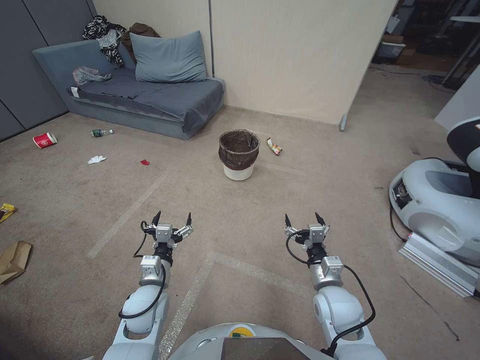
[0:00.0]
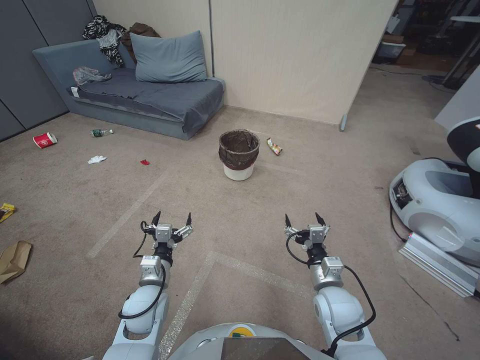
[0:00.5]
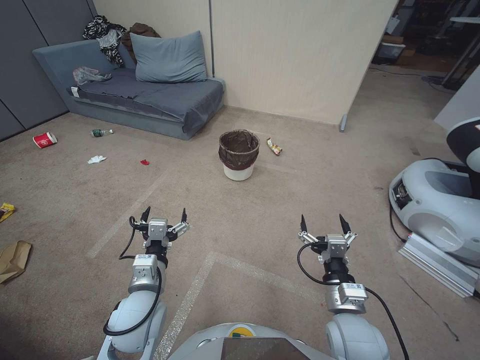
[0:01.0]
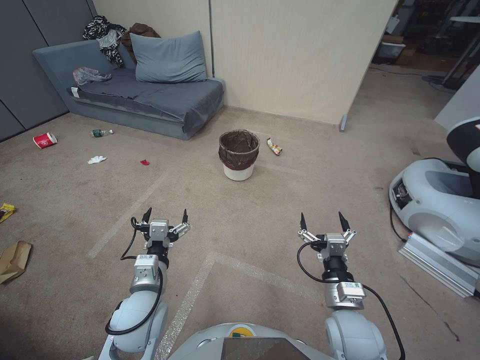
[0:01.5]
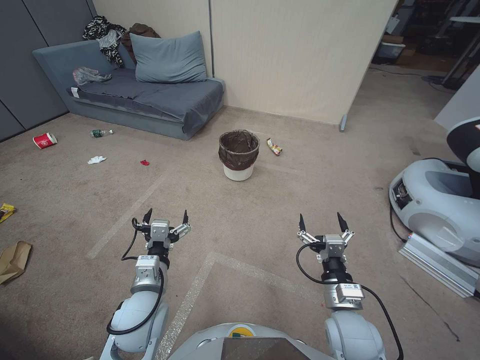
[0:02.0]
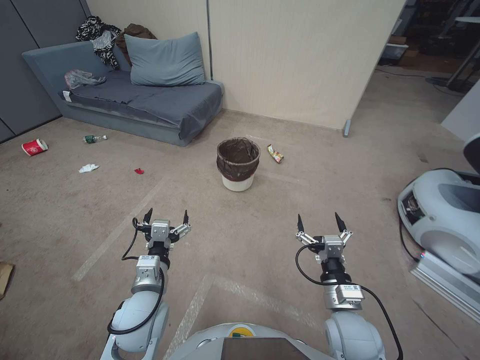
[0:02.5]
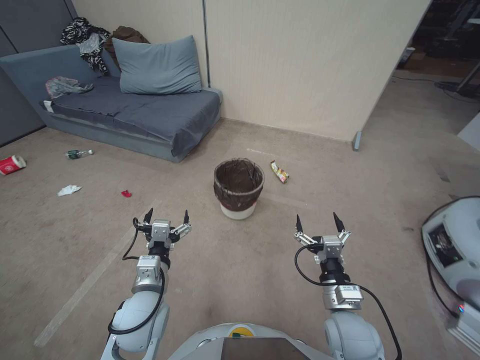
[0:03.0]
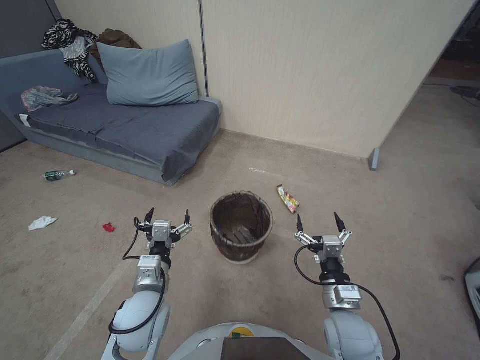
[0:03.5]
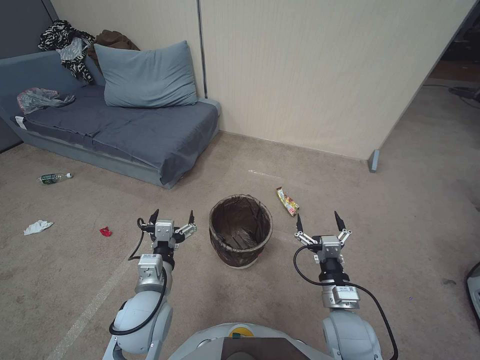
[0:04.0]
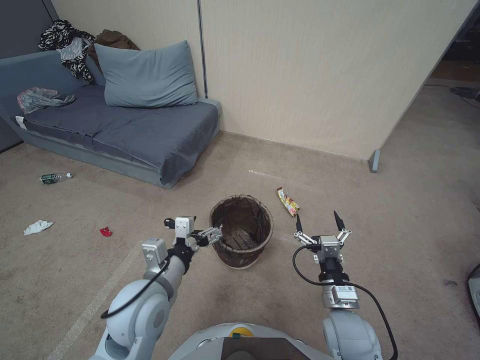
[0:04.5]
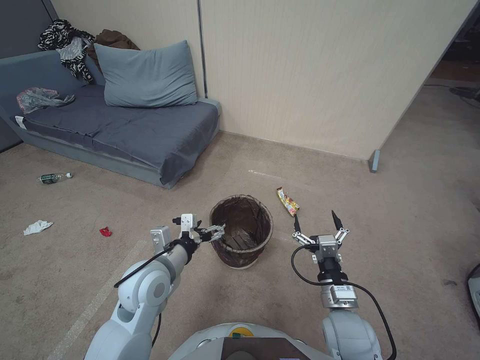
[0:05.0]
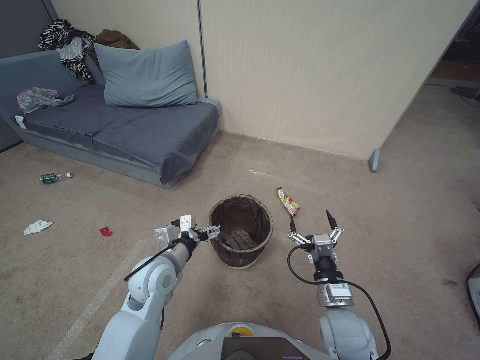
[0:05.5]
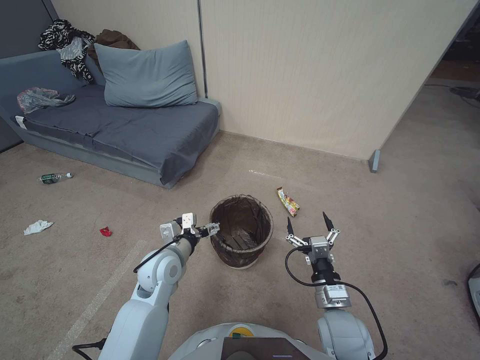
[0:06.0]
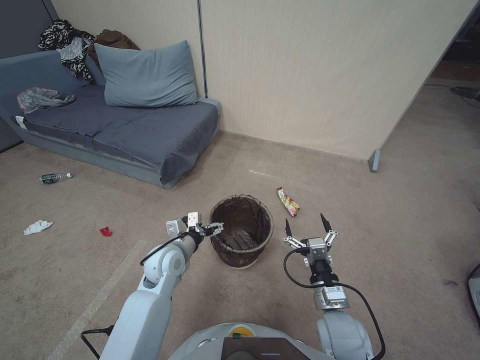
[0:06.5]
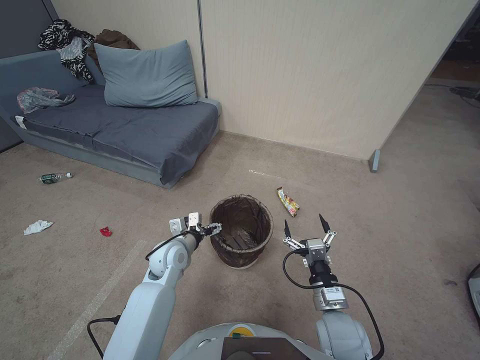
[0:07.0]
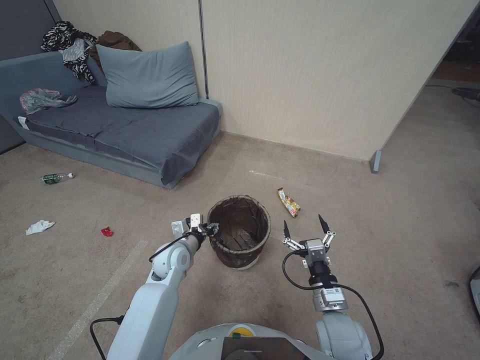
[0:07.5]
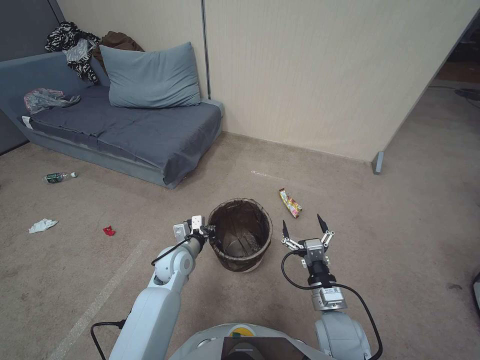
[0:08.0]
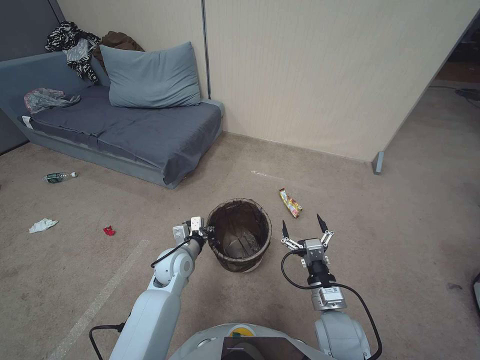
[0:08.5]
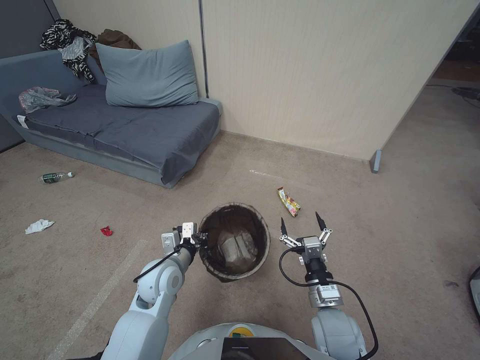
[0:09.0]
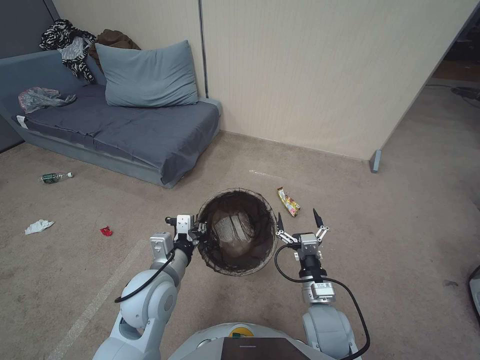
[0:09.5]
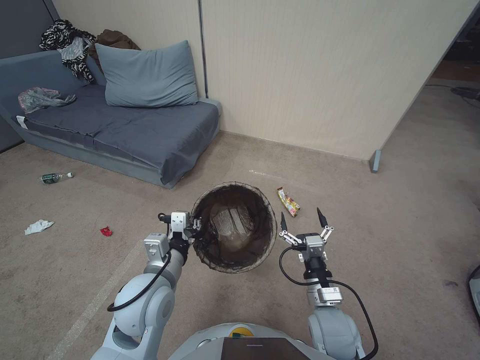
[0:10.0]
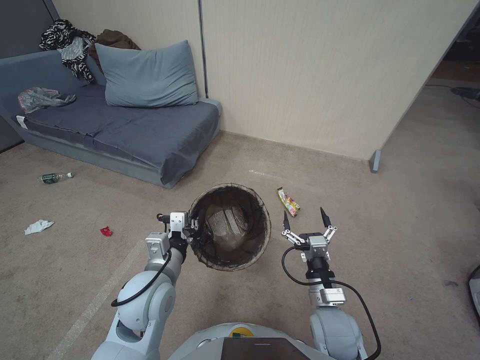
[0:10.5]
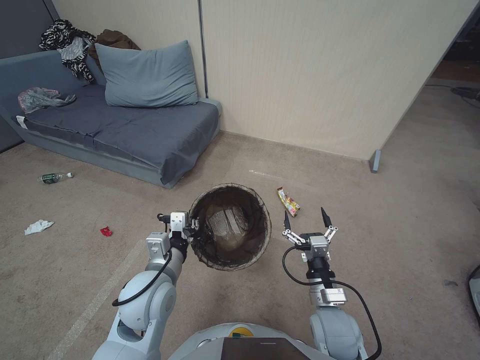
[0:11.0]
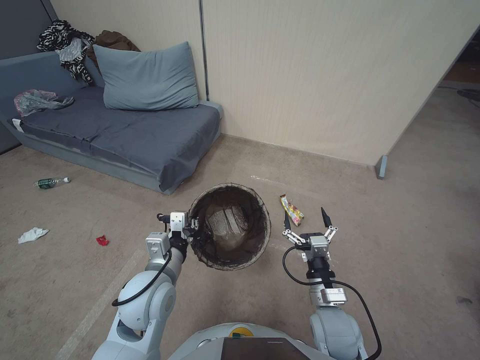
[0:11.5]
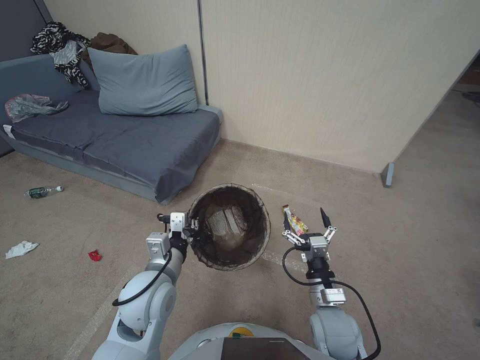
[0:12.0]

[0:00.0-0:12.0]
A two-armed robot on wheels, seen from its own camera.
Task of the whole recording: Pick up the trash bin, then pick up the garbage from the floor and place it into the trash bin.
0:04.0 to 0:06.0: The left gripper travels forward by about 10 cm.
0:06.0 to 0:08.0: The left gripper heads downward, covering about 10 cm, and closes its fingers.
0:08.0 to 0:10.0: The left gripper travels upward and backward by roughly 20 cm.
0:10.0 to 0:12.0: The grippers move only a little.

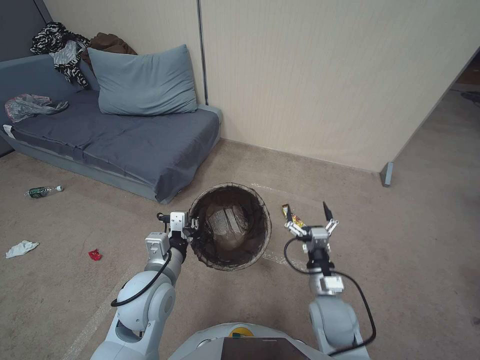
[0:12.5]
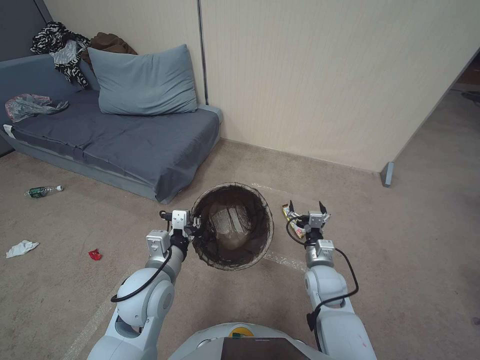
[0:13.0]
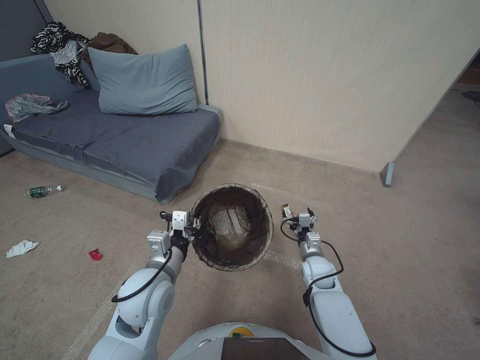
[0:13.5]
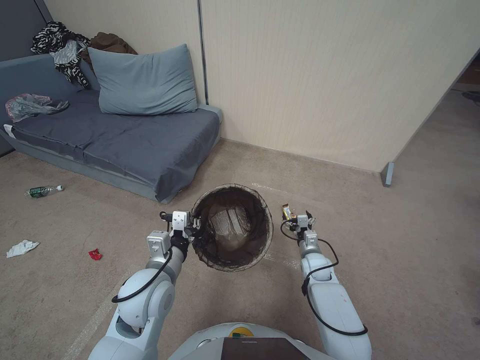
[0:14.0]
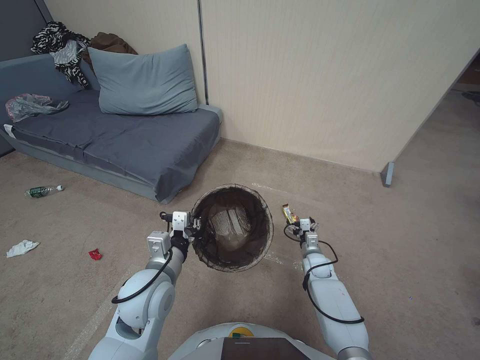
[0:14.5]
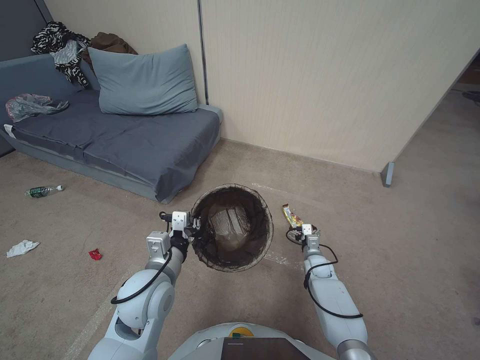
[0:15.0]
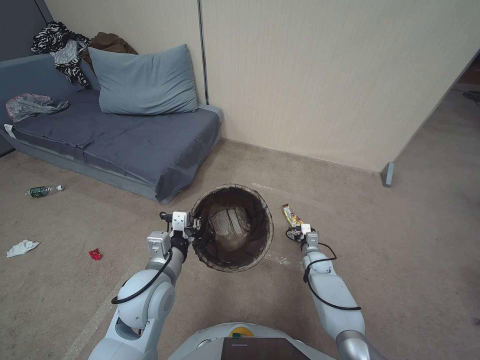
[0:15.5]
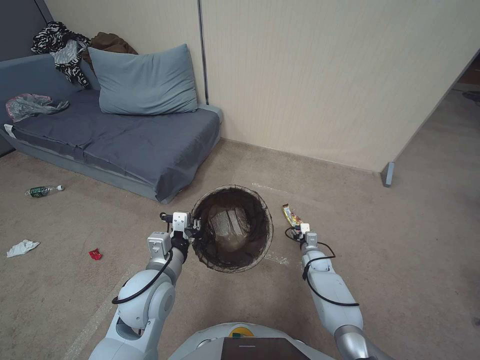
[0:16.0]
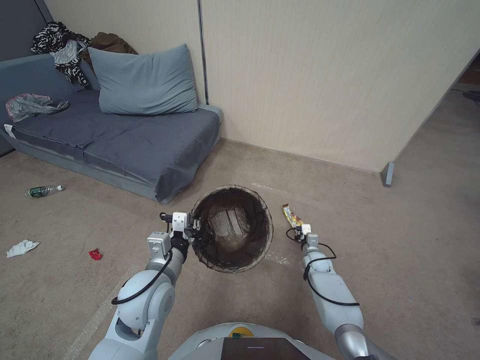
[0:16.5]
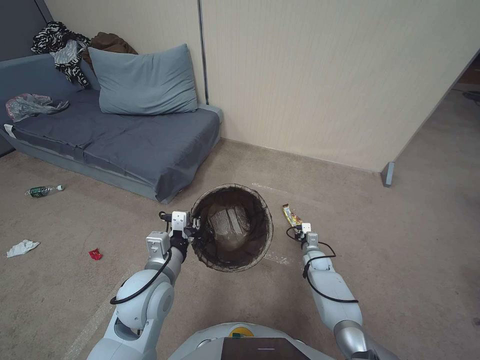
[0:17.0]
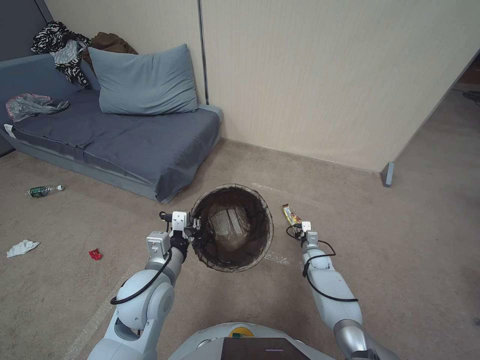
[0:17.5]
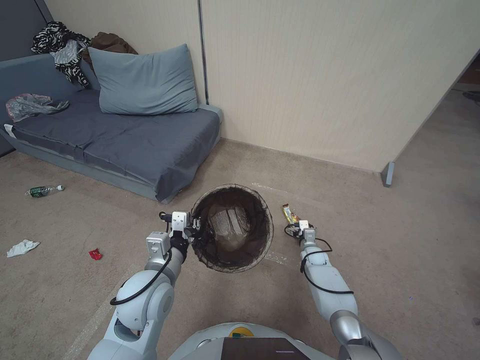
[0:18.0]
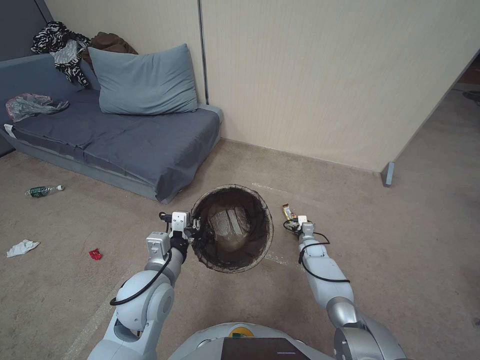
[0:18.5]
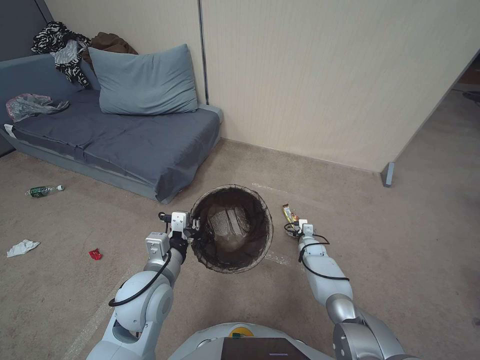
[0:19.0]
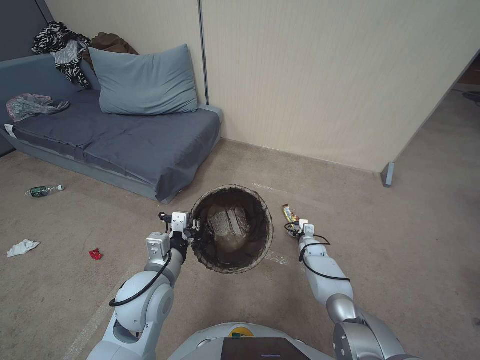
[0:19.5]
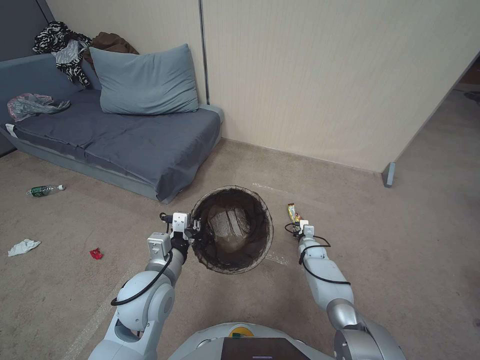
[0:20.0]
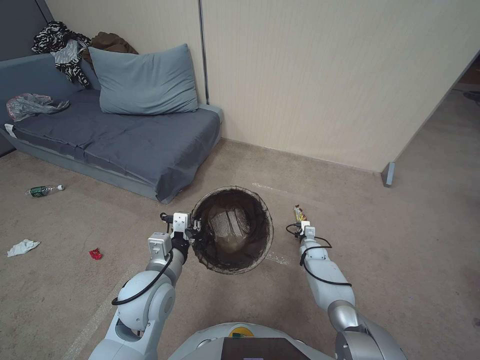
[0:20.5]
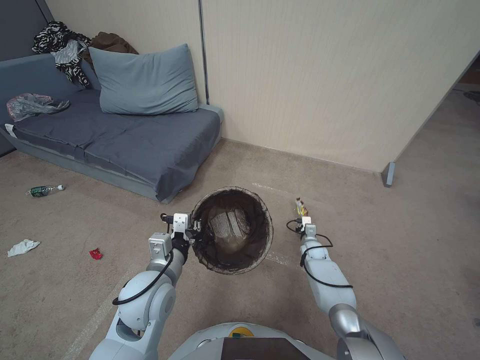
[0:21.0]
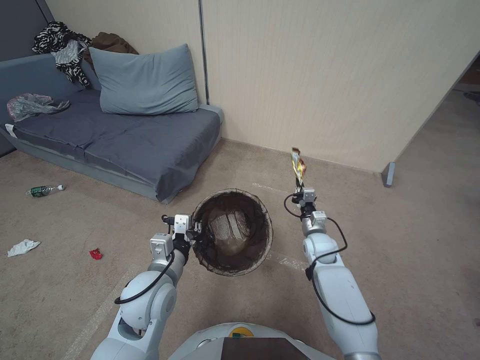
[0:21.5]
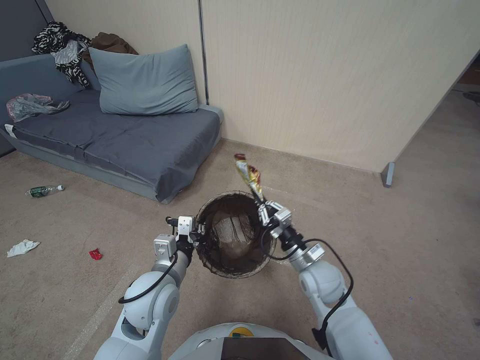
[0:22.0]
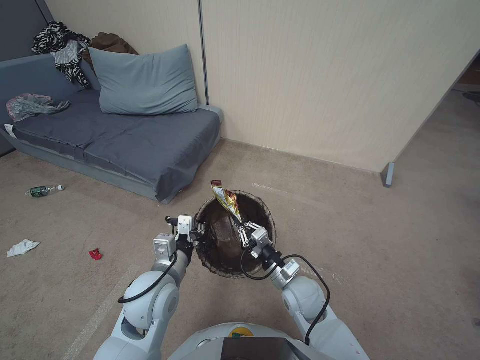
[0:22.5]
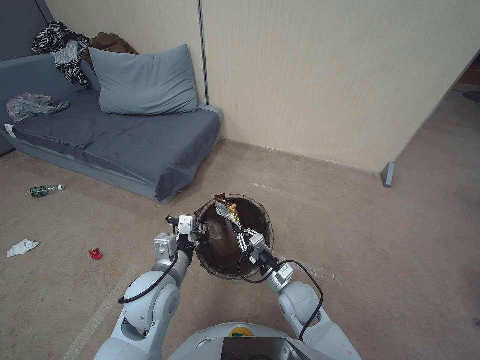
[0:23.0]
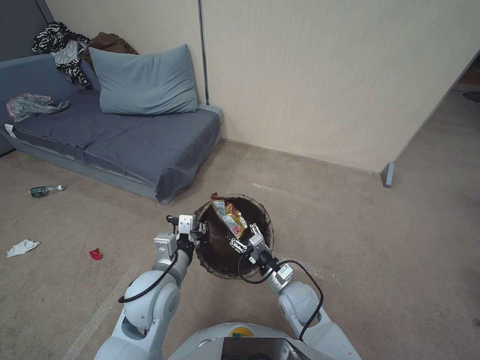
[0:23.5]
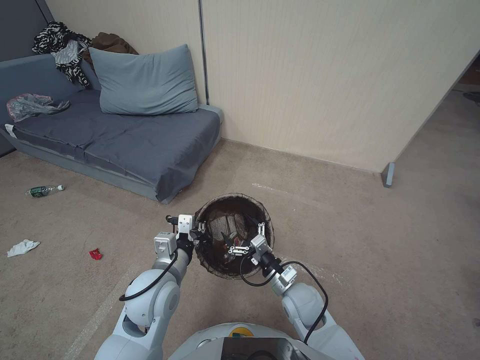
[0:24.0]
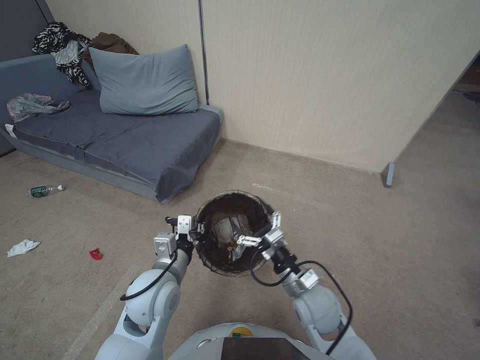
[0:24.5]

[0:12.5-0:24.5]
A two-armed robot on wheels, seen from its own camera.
Task of the whole recording: Pick up the trash bin, then pick up the garbage from the floor and place it into the trash bin.
0:12.5 to 0:14.5: The right gripper shifts about 25 cm forward and downward.
0:14.5 to 0:16.5: The right gripper moves approximately 5 cm, and closes.
0:16.5 to 0:18.5: The right gripper opens up.
0:18.5 to 0:20.5: The right gripper closes its fingers.
0:20.5 to 0:22.5: The right gripper travels backward, upward and to the left by some 30 cm.
0:22.5 to 0:24.5: The right gripper opens up.

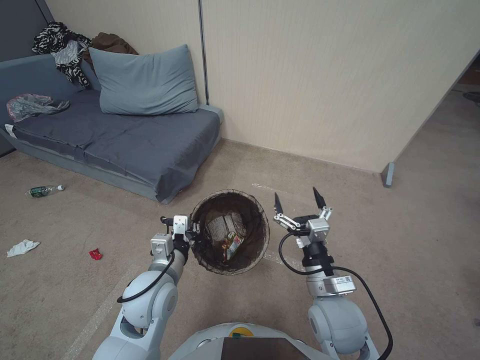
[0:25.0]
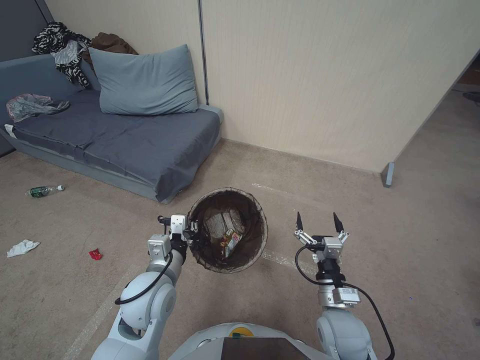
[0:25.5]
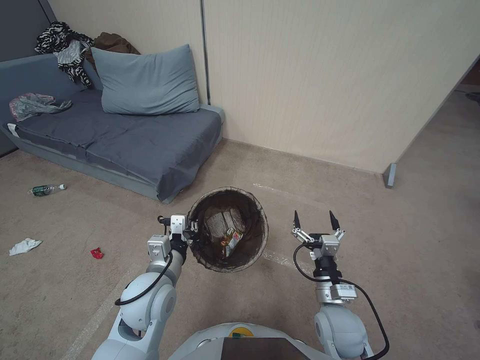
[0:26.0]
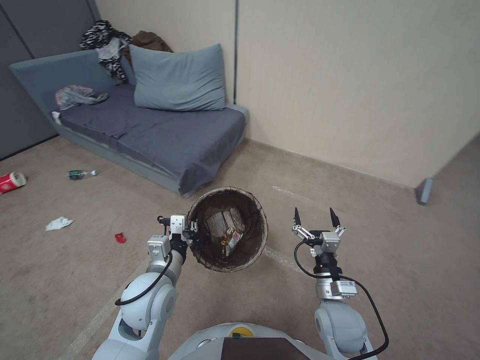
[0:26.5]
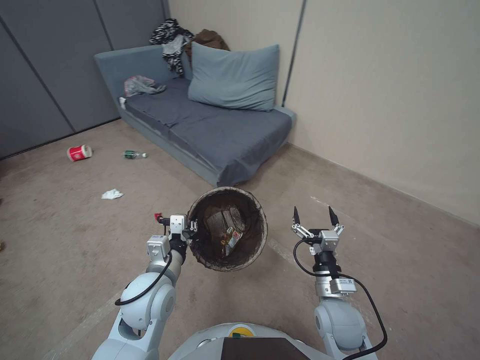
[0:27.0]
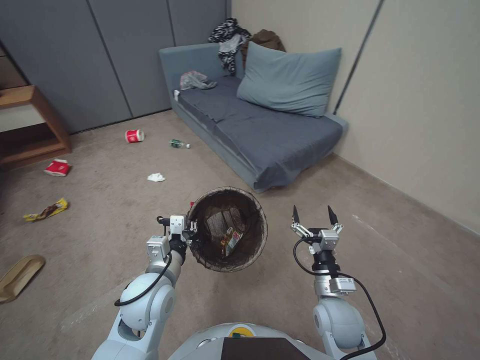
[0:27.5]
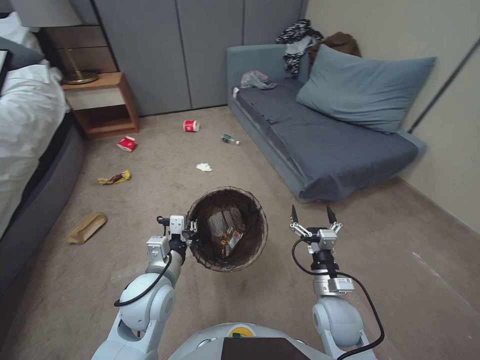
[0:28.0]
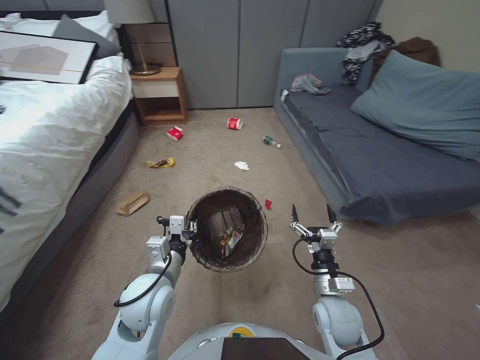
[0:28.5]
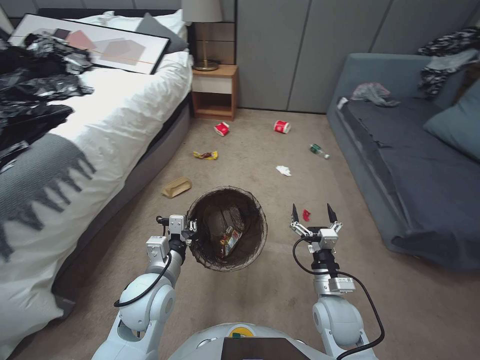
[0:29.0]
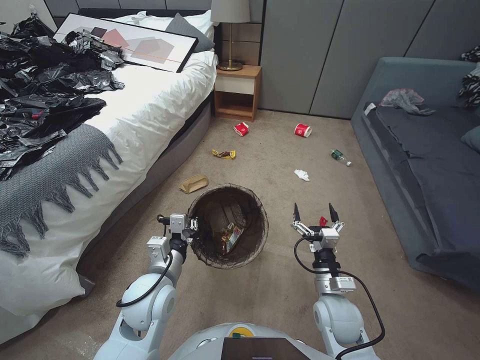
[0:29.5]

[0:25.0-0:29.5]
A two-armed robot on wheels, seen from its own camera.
Task of the whole recording: Pick up the trash bin, then pick up the garbage from the floor and place it into the trash bin.
0:25.0 to 0:27.0: The right gripper shifts some 10 cm downward.
